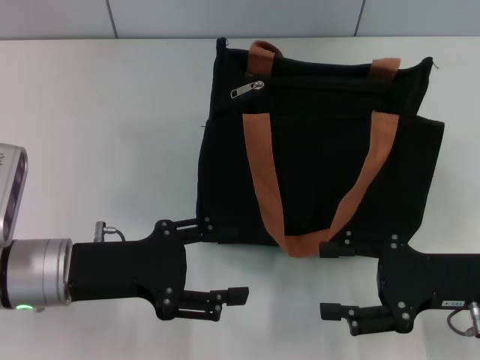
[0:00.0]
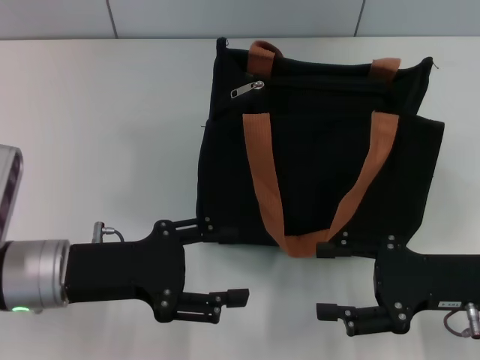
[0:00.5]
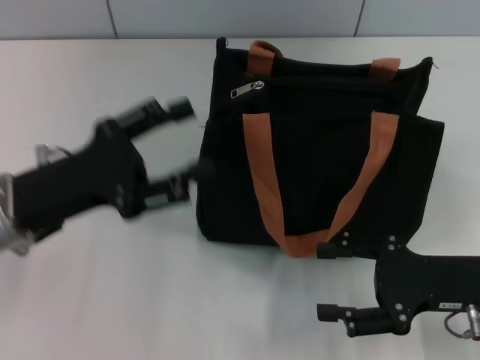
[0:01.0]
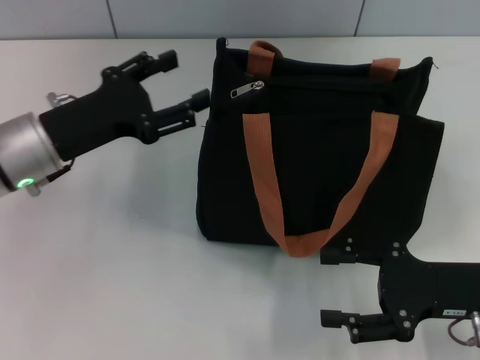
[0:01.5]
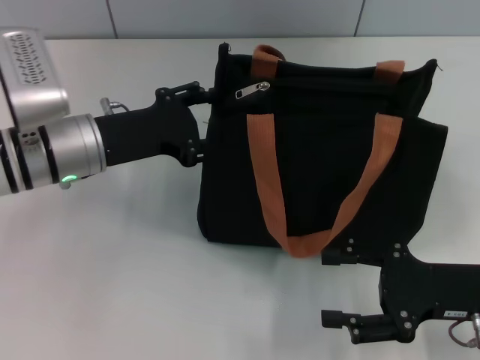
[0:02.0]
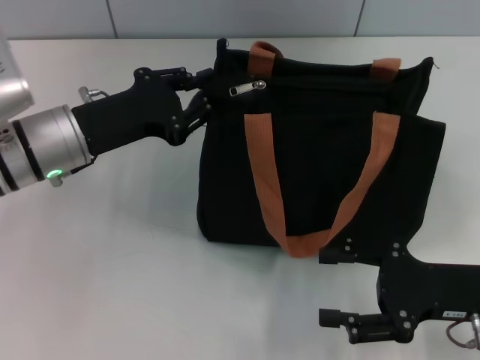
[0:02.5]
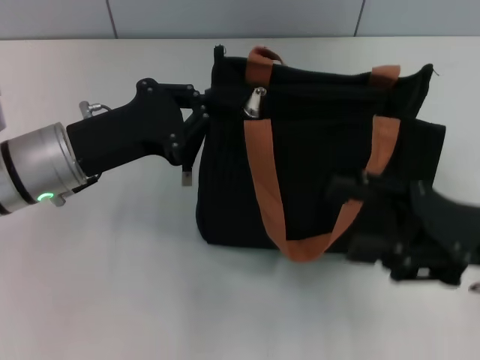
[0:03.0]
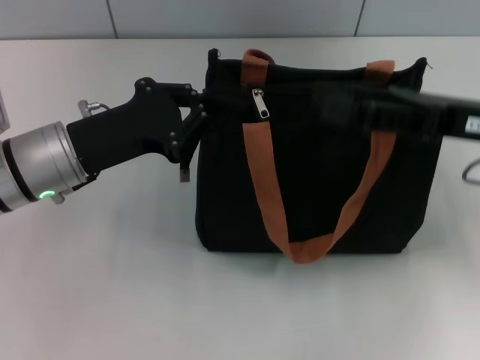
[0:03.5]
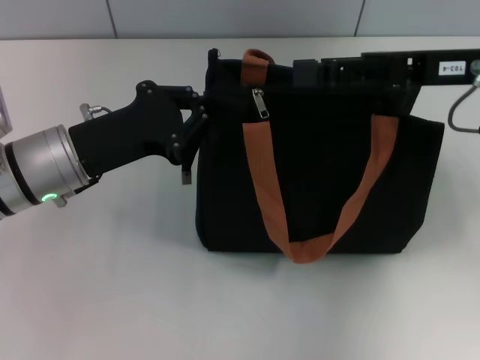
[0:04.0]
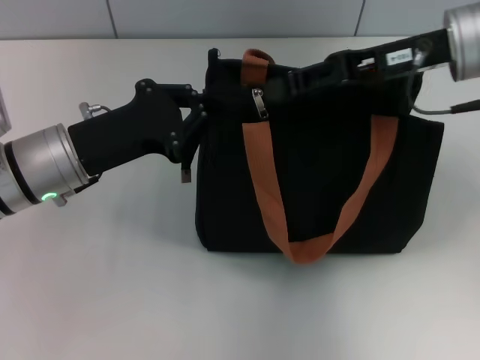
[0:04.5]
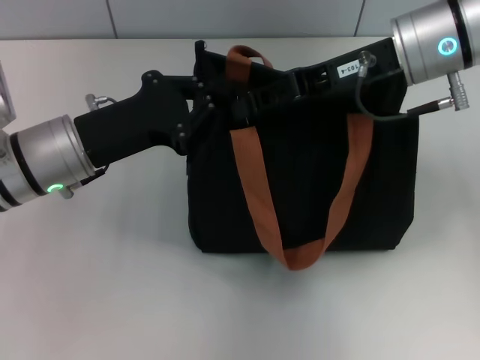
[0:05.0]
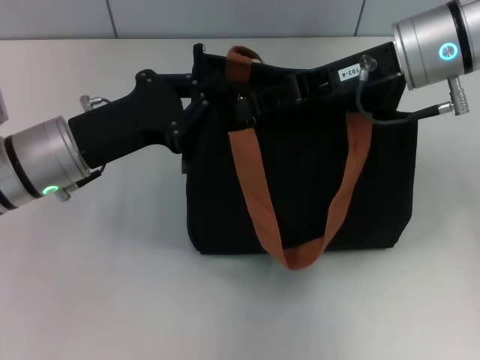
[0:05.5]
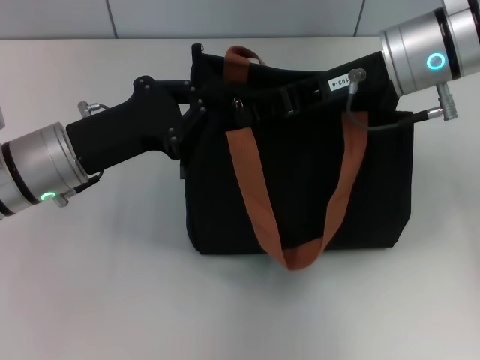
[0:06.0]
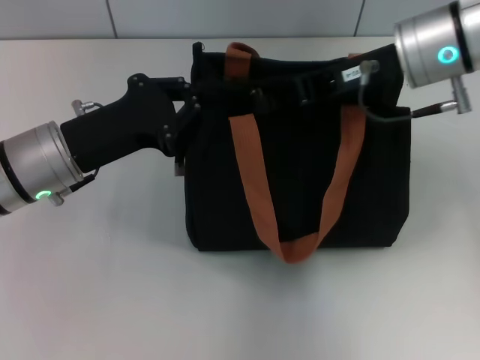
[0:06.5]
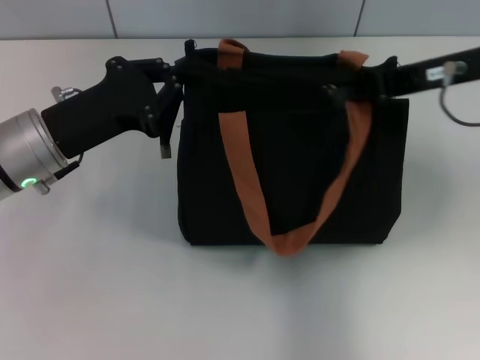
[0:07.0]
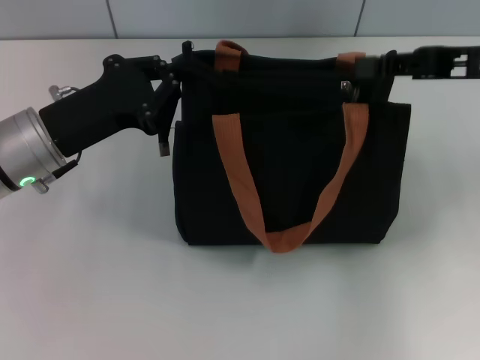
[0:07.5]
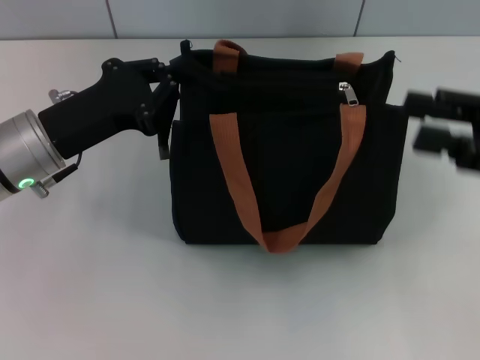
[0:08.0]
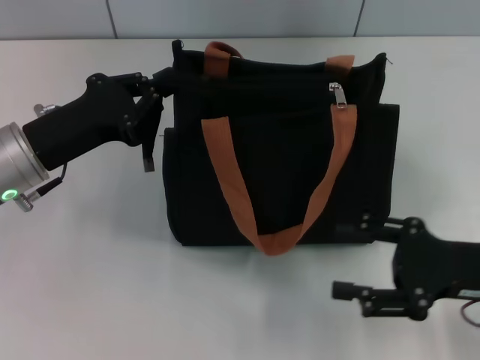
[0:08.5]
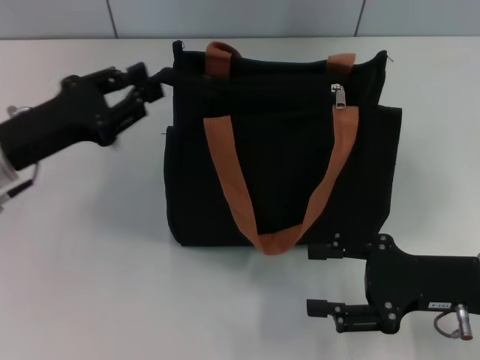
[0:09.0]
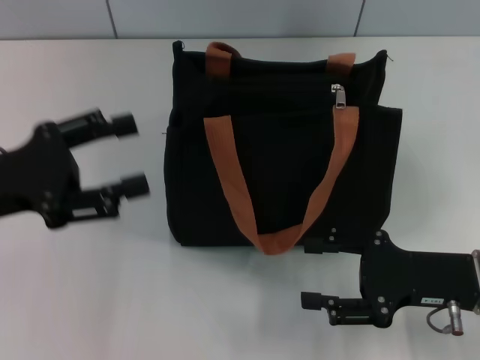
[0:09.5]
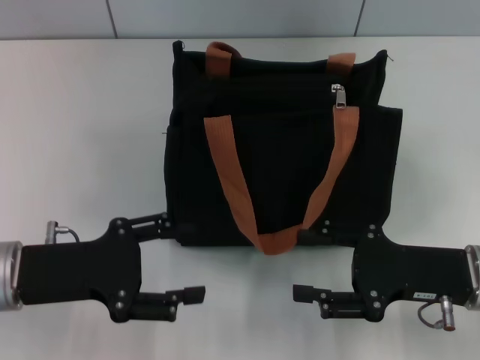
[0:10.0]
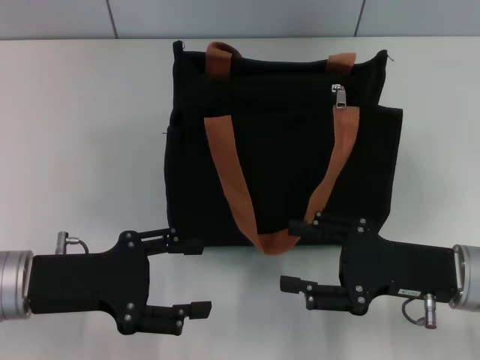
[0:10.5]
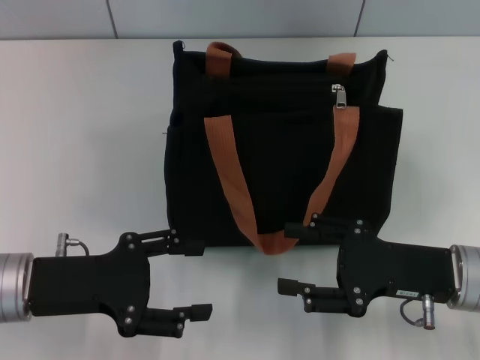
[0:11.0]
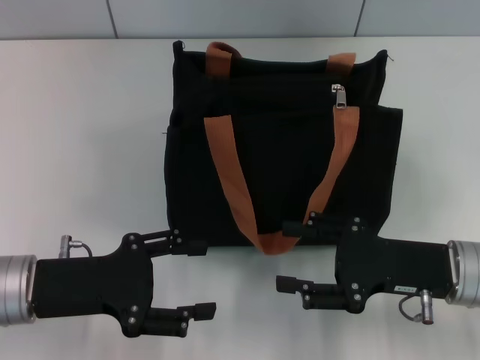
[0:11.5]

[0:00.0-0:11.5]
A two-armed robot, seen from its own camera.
Step, 0:00.0 to 0:07.0: Pull up the zipper with your right hand.
Step, 0:08.0 to 0:09.0: Grab the zipper with your left hand.
0:00.0 to 0:02.0: The left gripper moves forward, approximately 10 cm.
0:02.0 to 0:04.0: The right gripper is displaced upward and forward by approximately 20 cm; the left gripper closes its fingers.
0:04.0 to 0:06.0: The right gripper heads to the left, covering about 5 cm, and closes.
0:06.0 to 0:07.5: The right gripper shifts about 10 cm to the right.
0:07.5 to 0:09.5: The right gripper moves downward and backward, some 20 cm, and opens up; the left gripper moves to the left and backward, approximately 10 cm, and opens its fingers.
0:09.5 to 0:11.5: The left gripper goes roughly 5 cm downward.

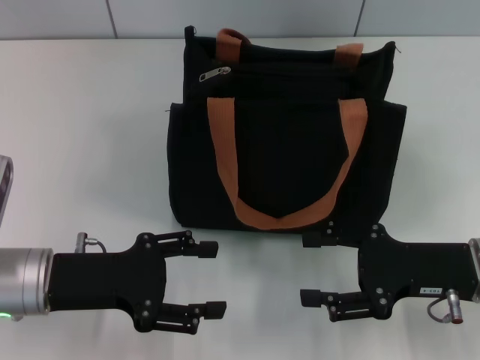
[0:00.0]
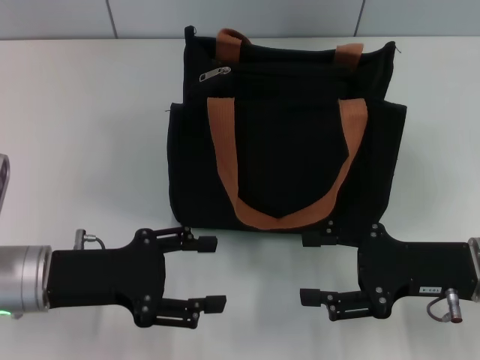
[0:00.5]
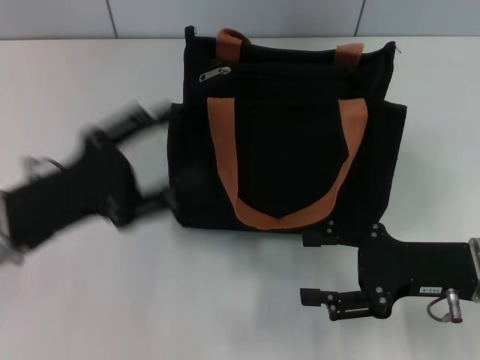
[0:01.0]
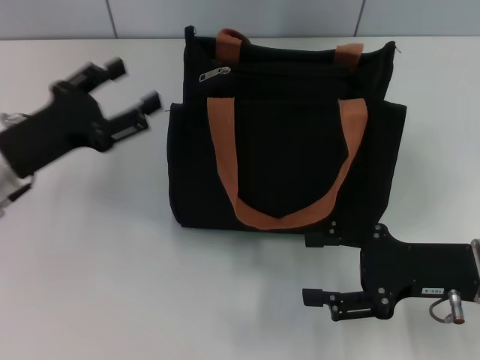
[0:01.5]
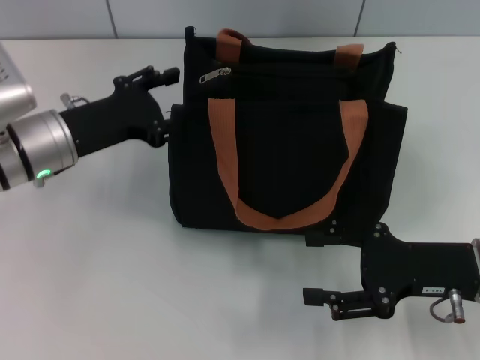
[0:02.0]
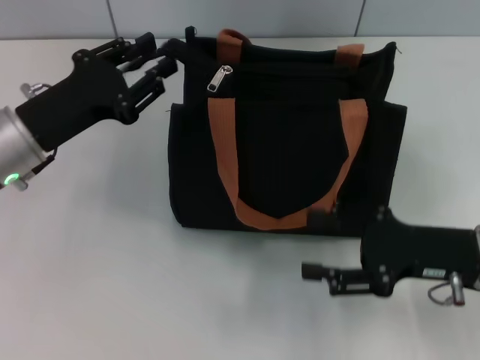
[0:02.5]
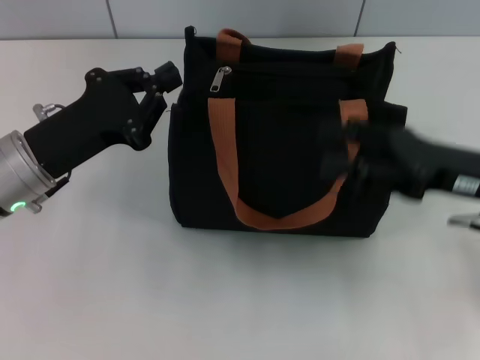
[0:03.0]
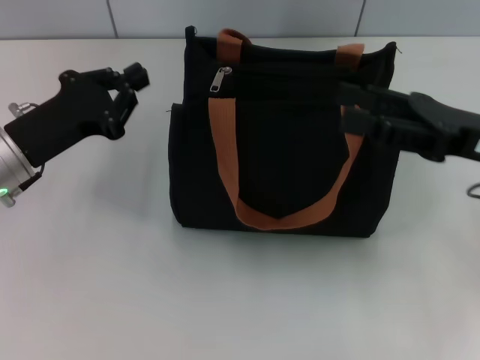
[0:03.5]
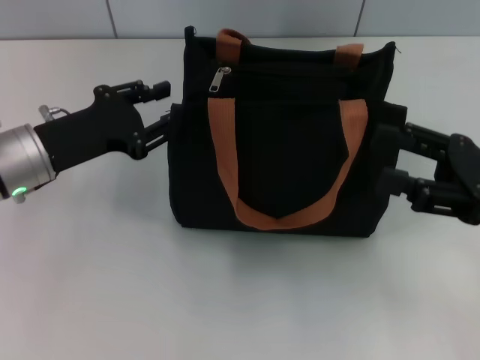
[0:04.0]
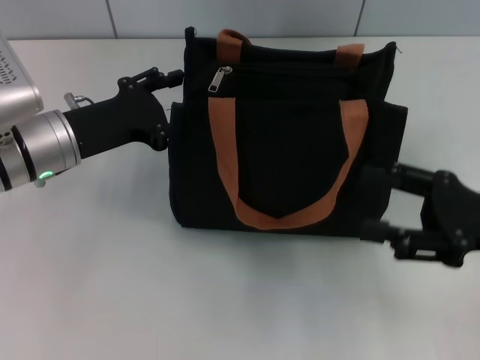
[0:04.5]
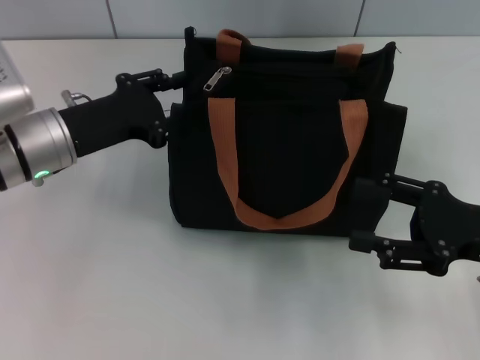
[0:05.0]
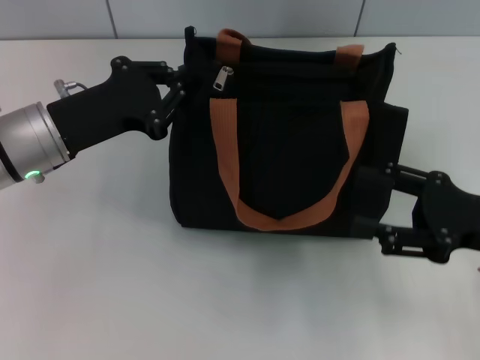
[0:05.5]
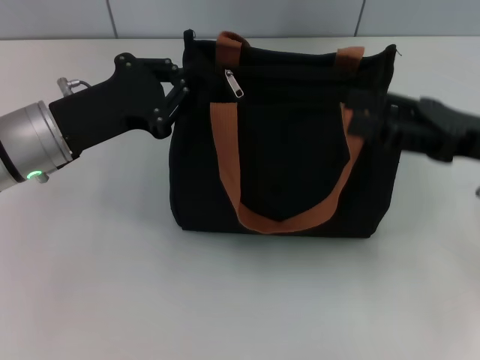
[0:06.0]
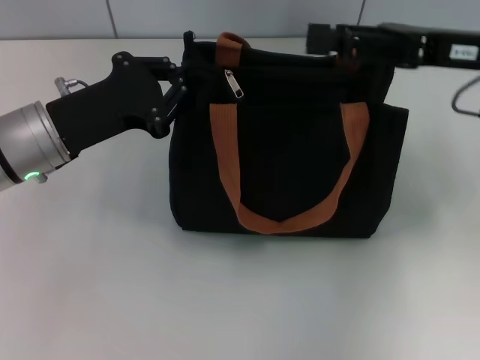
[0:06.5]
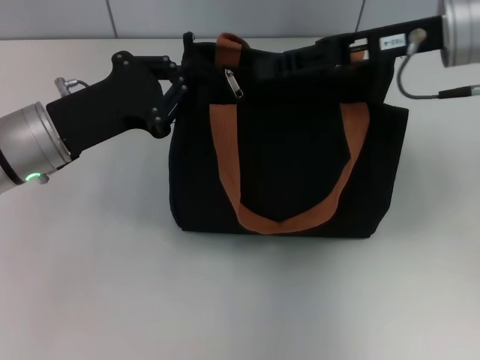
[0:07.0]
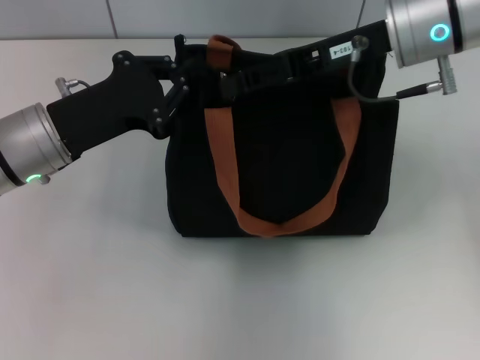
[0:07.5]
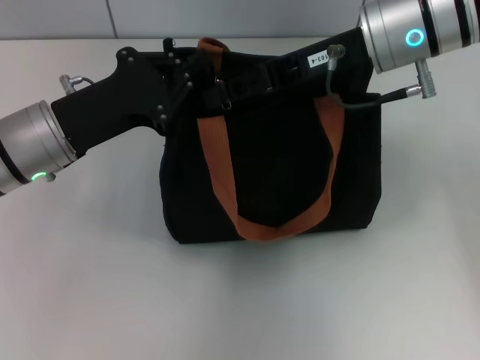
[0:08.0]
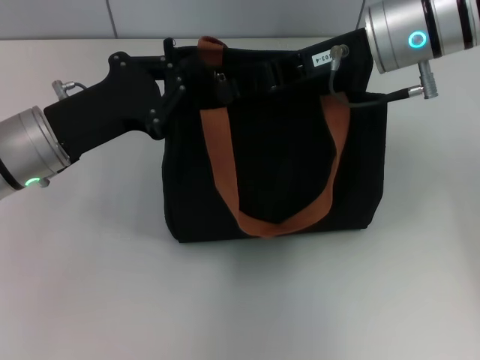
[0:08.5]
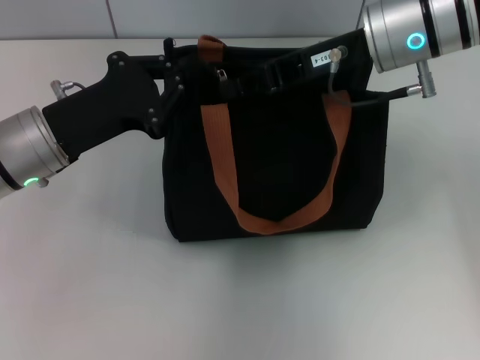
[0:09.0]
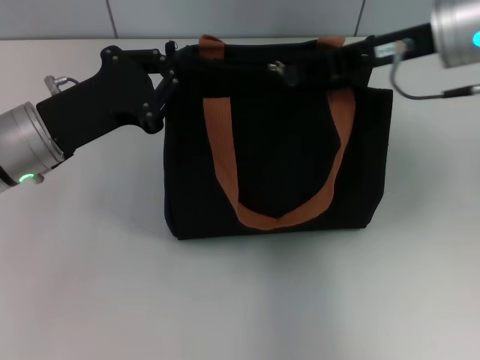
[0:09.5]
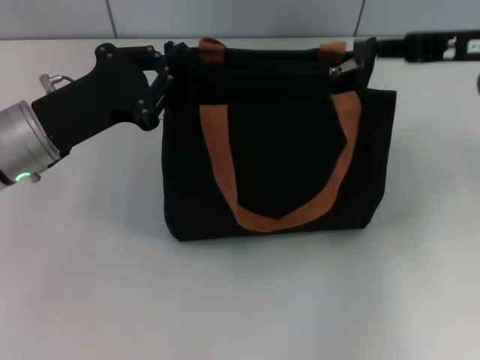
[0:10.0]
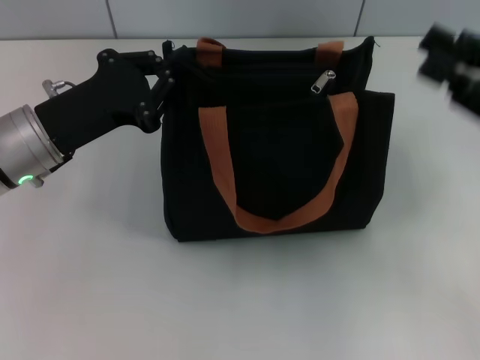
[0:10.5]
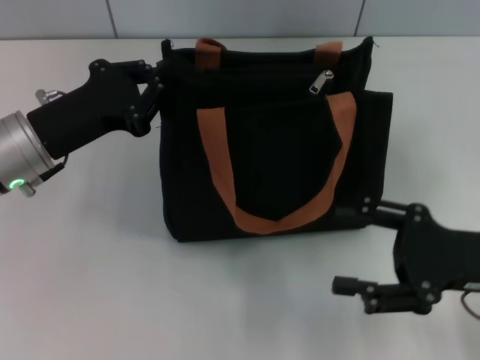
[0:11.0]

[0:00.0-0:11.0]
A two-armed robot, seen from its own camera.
Step, 0:00.0 to 0:10.0: Pull up the zipper with your right hand.
0:00.0 to 0:02.0: The left gripper moves forward, roughly 10 cm.
0:02.0 to 0:03.5: The right gripper heads upward, covering approximately 10 cm. Meanwhile the left gripper closes.
0:03.5 to 0:05.5: The left gripper opens and closes again; the right gripper ends up approximately 5 cm from where it was.
0:05.5 to 0:07.5: The right gripper travels forward, to the left and upward by approximately 25 cm, and closes its fingers.
0:07.5 to 0:09.0: The right gripper closes up.
0:09.0 to 0:11.0: The right gripper travels backward, to the right and downward by approximately 25 cm, and opens.

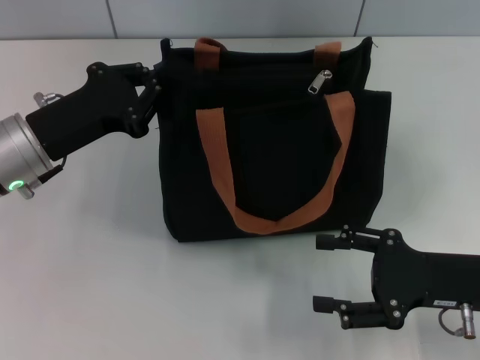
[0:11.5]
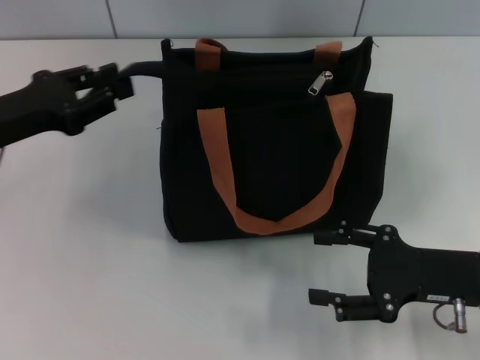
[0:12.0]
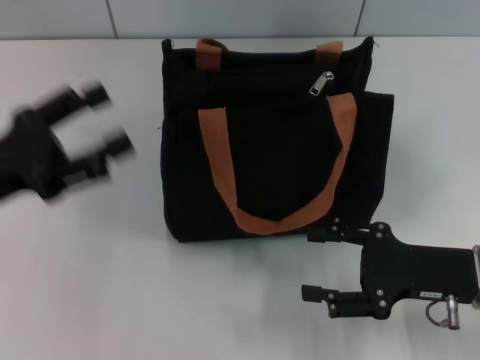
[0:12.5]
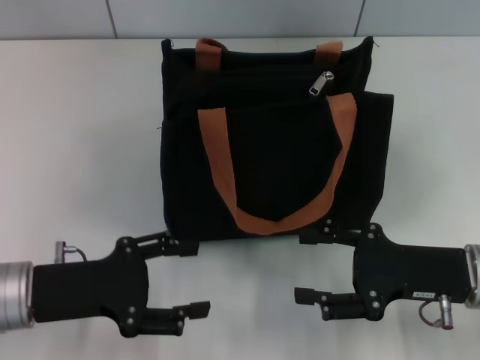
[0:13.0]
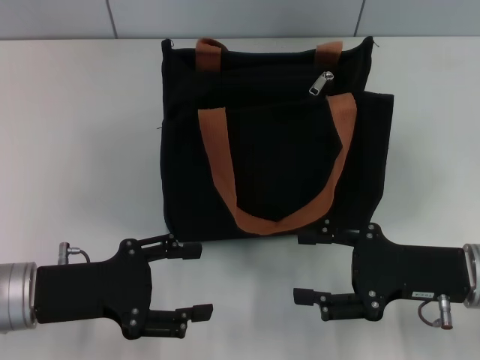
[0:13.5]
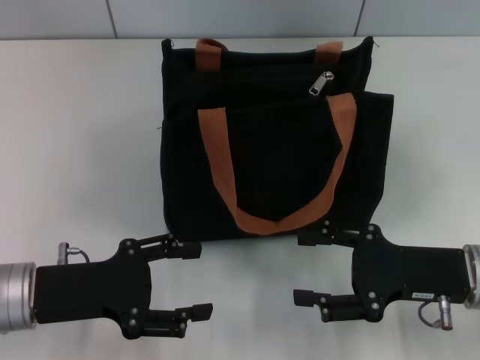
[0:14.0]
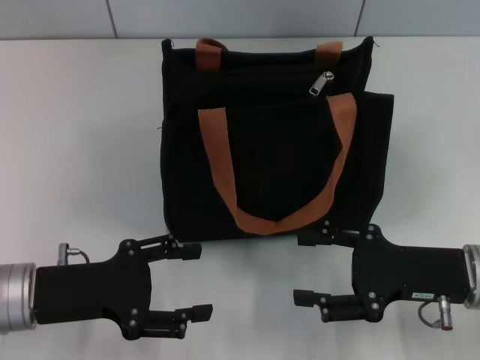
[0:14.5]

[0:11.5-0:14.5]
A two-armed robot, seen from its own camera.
0:11.5 to 0:13.0: The left gripper heads backward, covering about 10 cm, and opens.
0:13.0 to 0:14.5: Neither gripper changes place.
